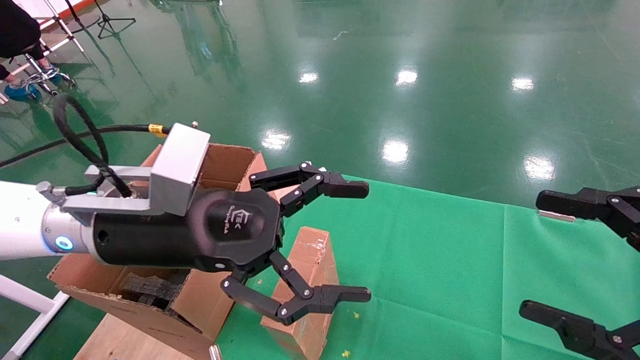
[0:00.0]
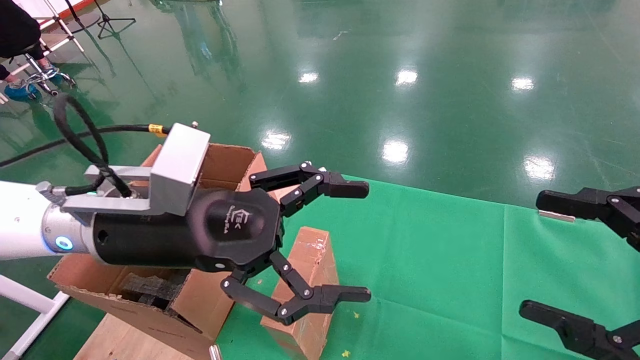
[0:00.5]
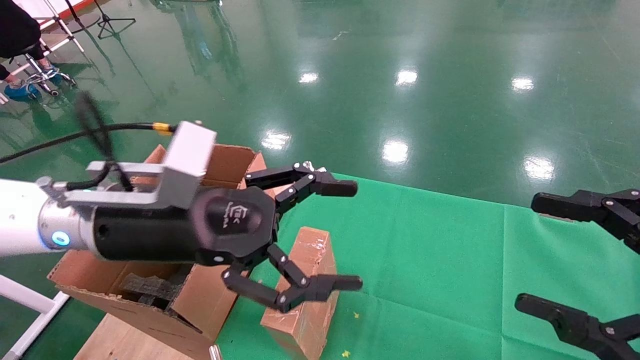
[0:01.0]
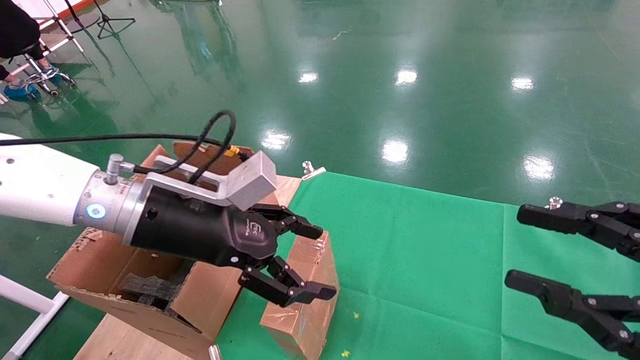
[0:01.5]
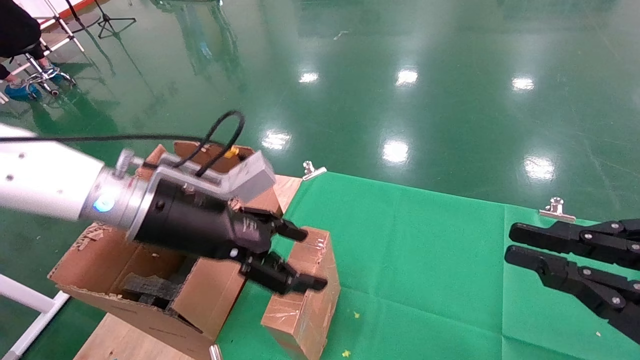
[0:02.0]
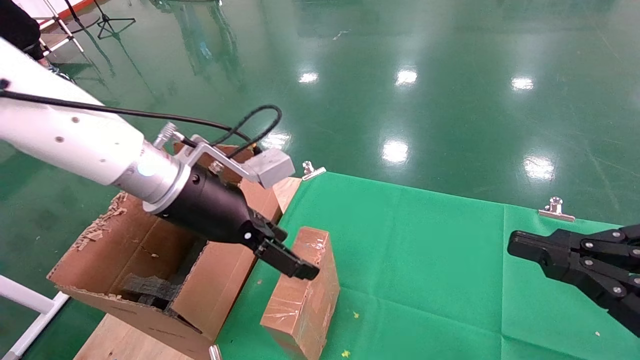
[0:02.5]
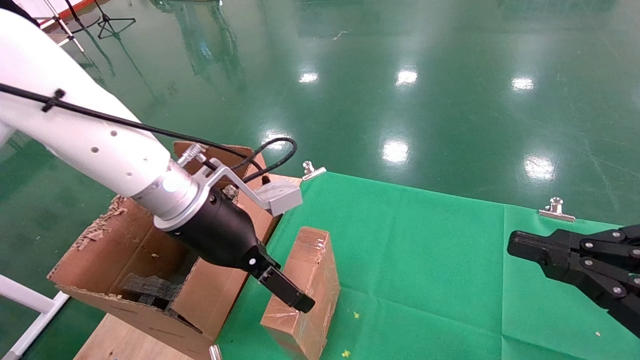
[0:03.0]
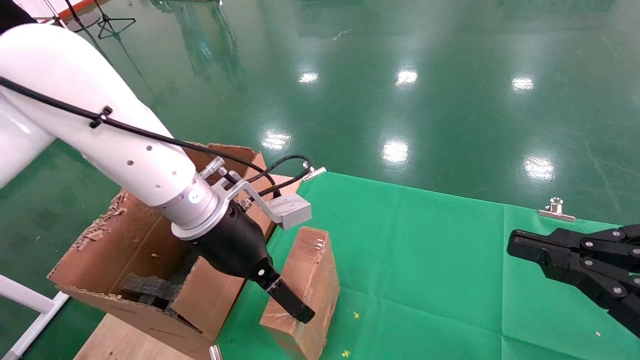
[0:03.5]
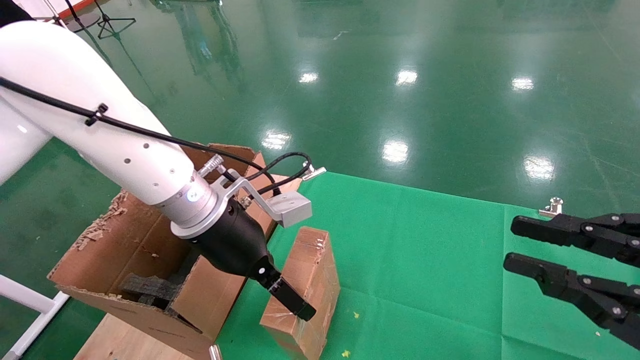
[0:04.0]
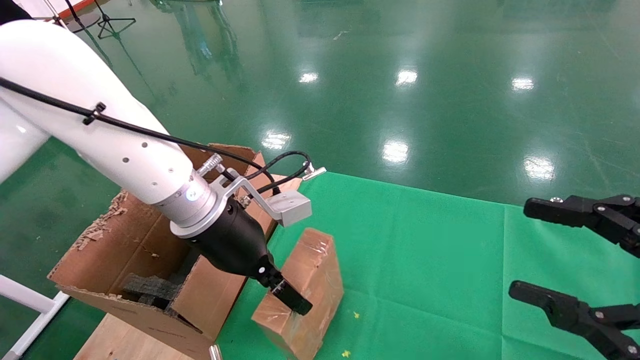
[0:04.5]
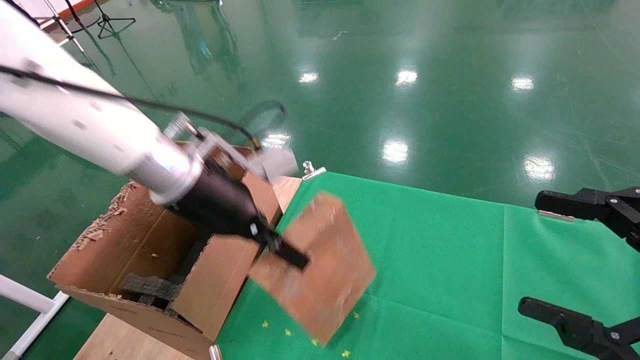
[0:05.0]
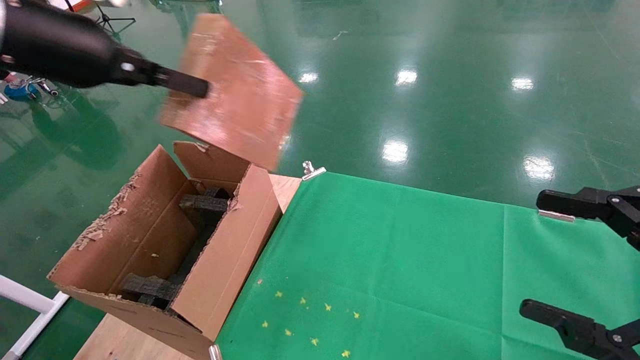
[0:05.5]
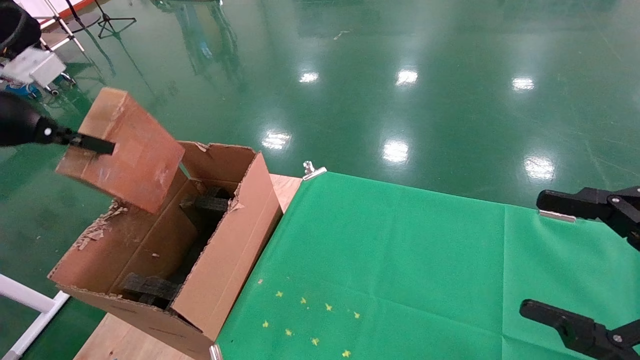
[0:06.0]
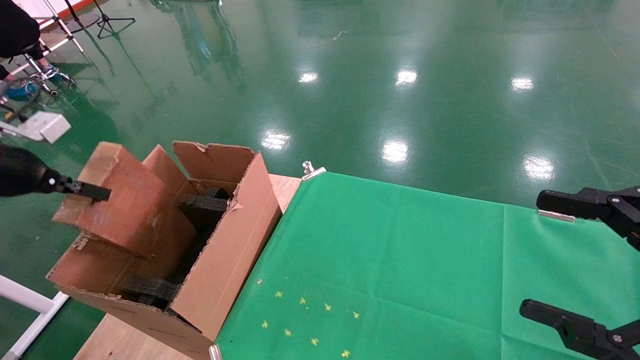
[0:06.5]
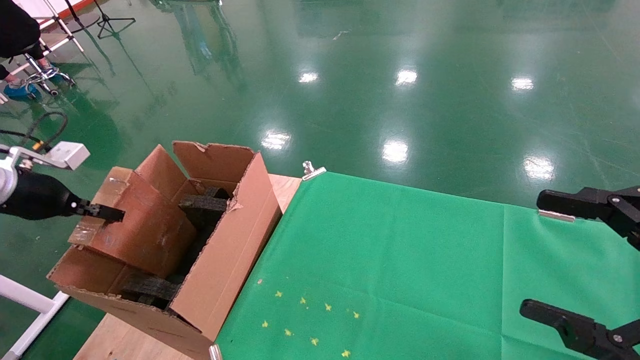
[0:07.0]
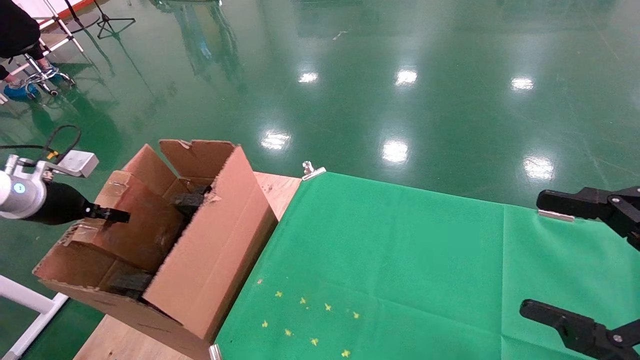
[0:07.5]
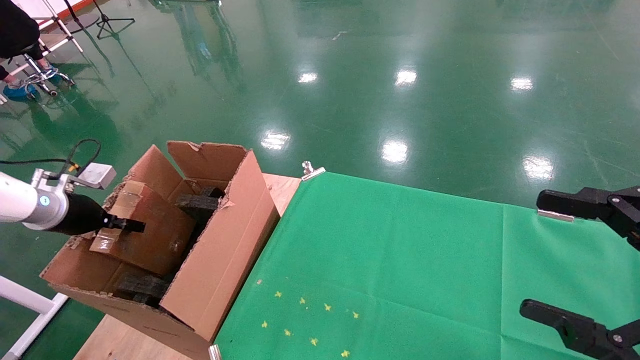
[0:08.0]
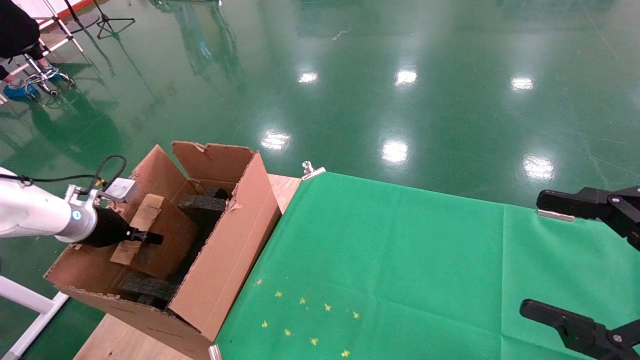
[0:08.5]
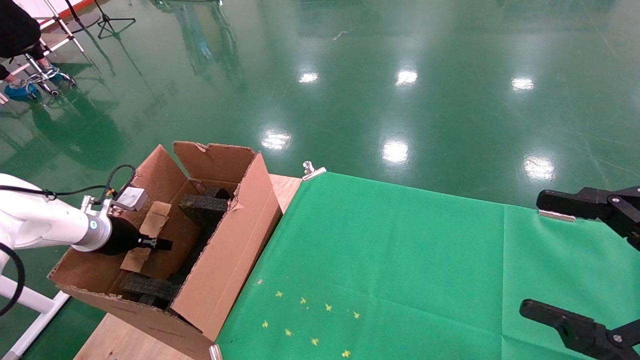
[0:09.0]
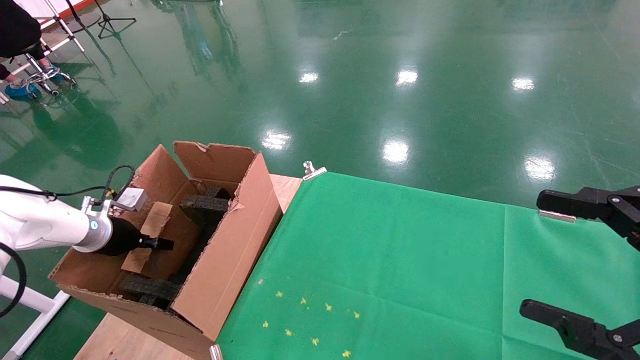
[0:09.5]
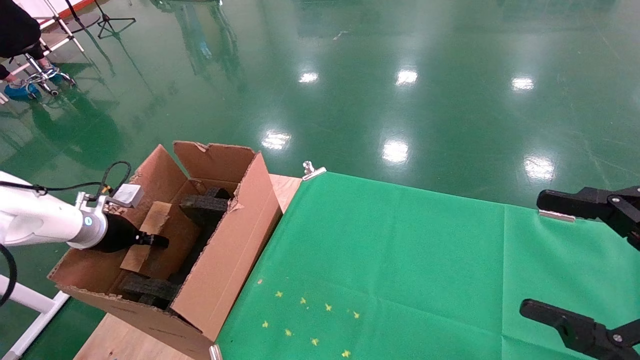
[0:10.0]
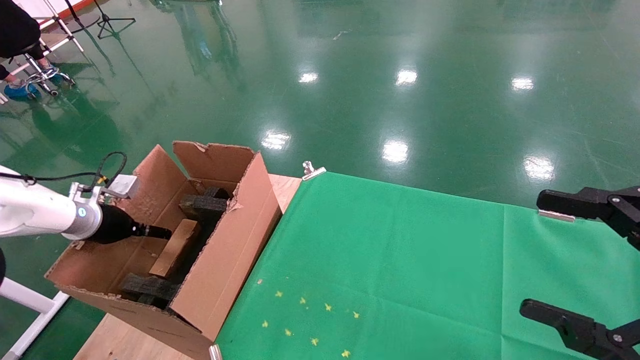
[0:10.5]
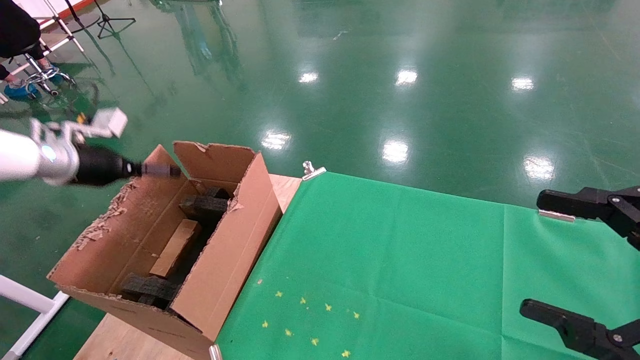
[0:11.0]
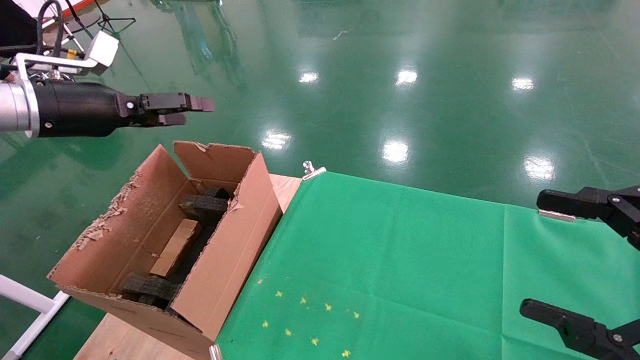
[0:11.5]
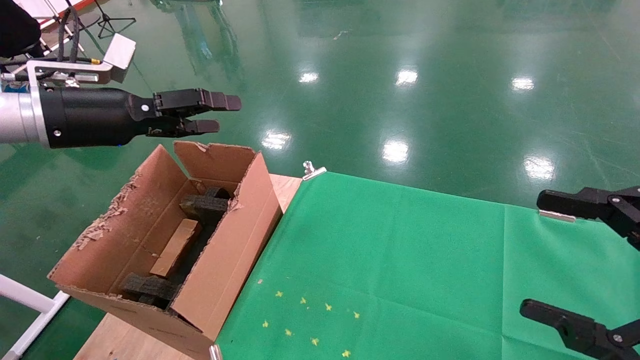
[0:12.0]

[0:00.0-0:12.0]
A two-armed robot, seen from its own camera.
Task of the whole recording: using a robotic arm to pick up a cardboard box and palace it the carton.
Step, 0:01.5 to 0:04.5: Pick up the mouse and the power cord paper box.
Step, 0:05.0 to 0:10.5: Place the mouse and the power cord paper box into the container.
0:00.0 to 0:02.0: The left gripper goes roughly 5 cm forward. The right gripper closes its fingers.
0:02.0 to 0:04.0: The left gripper changes place by approximately 5 cm.
0:04.0 to 0:06.0: The left gripper shifts about 30 cm to the left and upward, and closes up; the right gripper opens up.
0:06.0 to 0:08.0: The left gripper heads downward and forward, covering some 20 cm.
0:08.0 to 0:10.0: The left gripper shifts some 5 cm downward, and opens up.
0:10.0 to 0:12.0: The left gripper moves upward and to the right, about 25 cm, and opens its fingers.

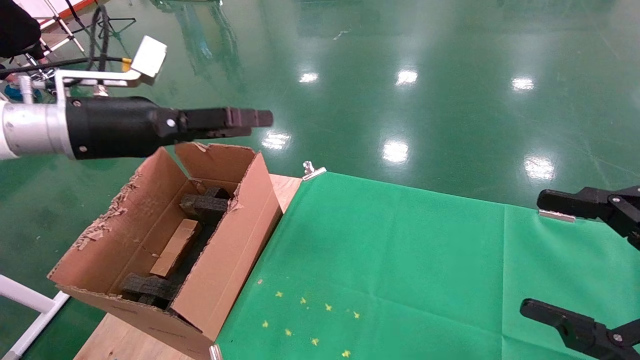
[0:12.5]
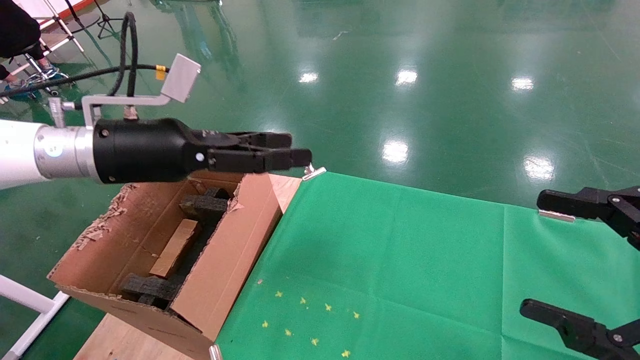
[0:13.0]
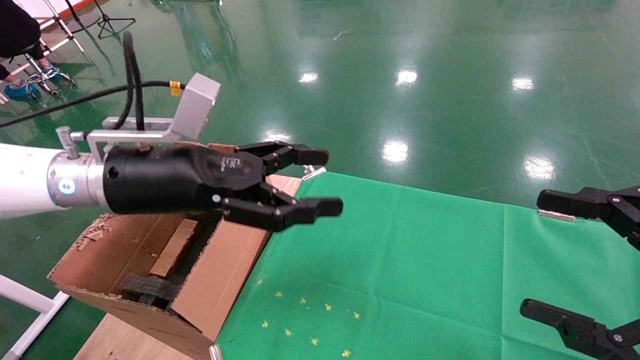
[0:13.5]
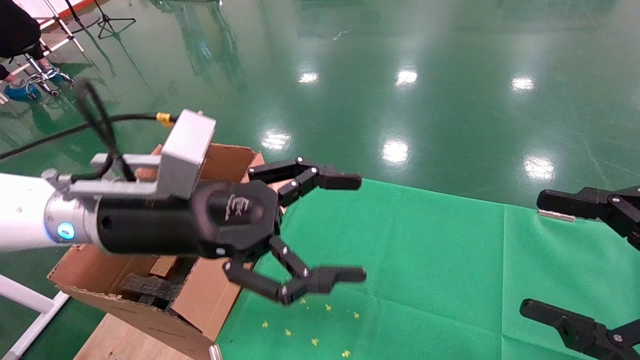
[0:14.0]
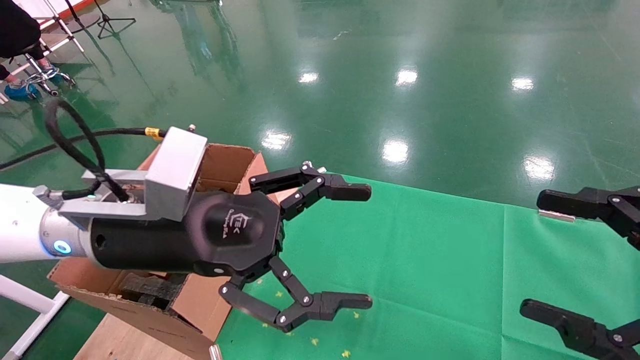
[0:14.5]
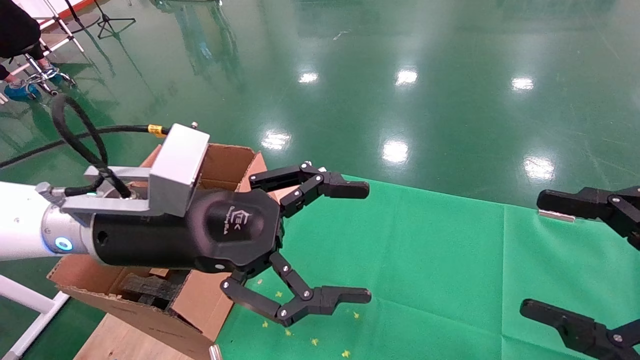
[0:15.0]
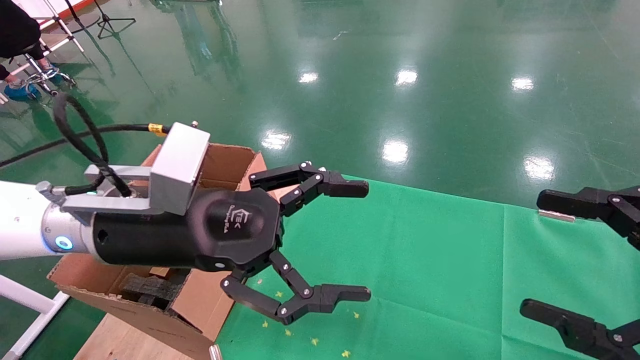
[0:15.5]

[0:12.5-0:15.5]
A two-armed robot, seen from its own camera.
Task of the whole recording: using a robotic arm to pick up a cardboard box and palace it the carton.
0:12.5 to 0:14.0: The left gripper heads to the right, backward and downward, covering about 15 cm.
0:14.0 to 0:15.5: The grippers stay close to where they were, moving slightly.
